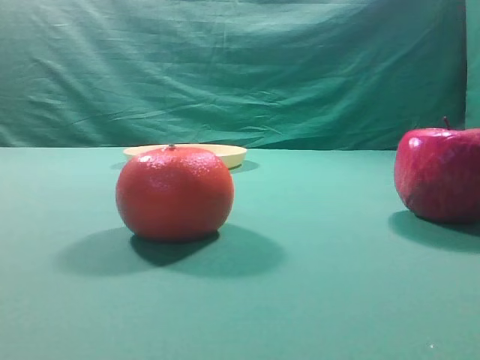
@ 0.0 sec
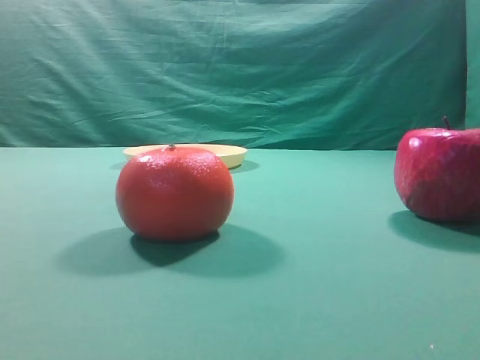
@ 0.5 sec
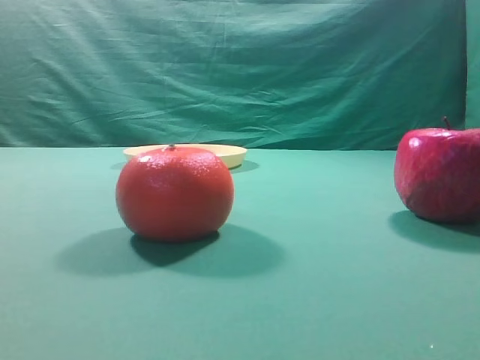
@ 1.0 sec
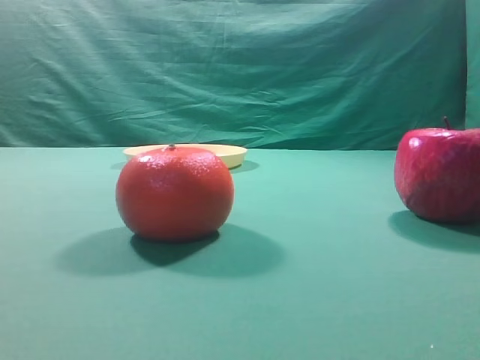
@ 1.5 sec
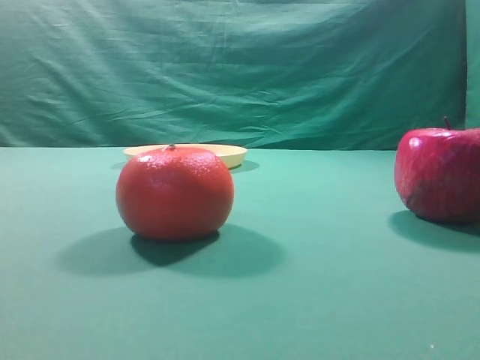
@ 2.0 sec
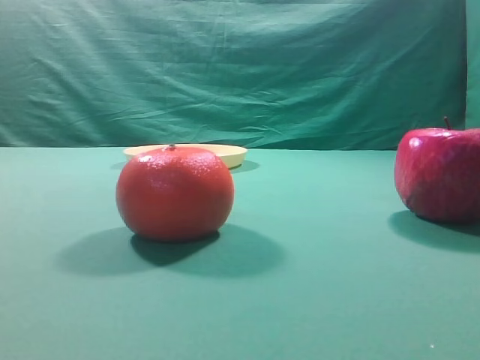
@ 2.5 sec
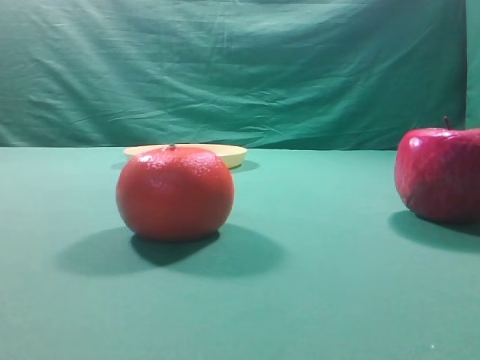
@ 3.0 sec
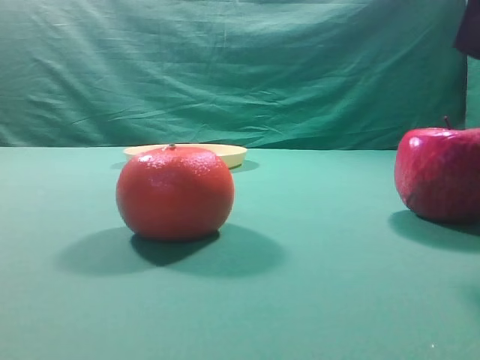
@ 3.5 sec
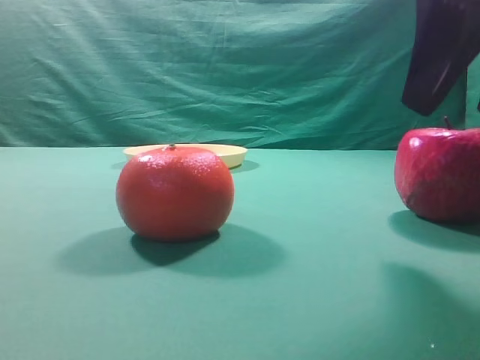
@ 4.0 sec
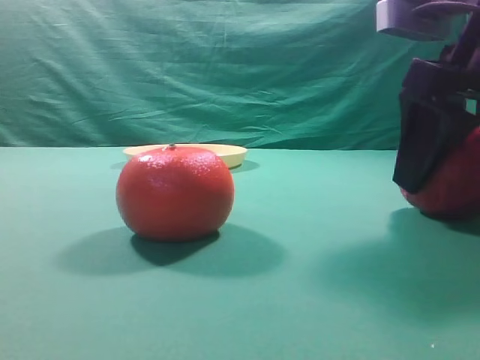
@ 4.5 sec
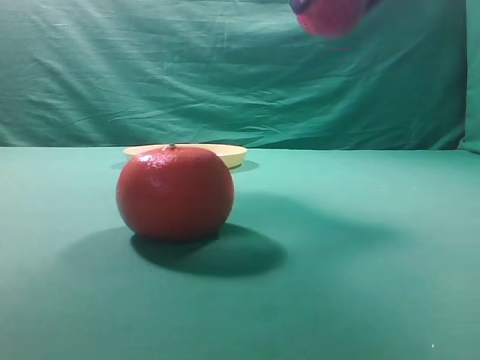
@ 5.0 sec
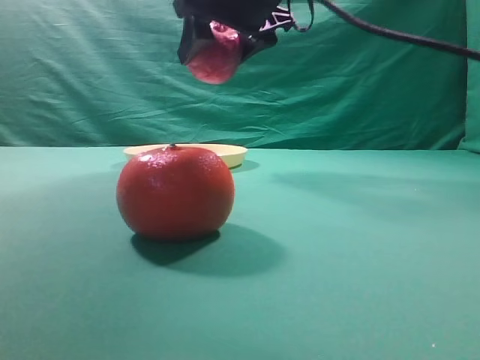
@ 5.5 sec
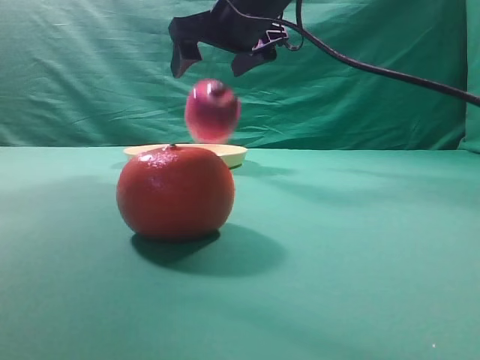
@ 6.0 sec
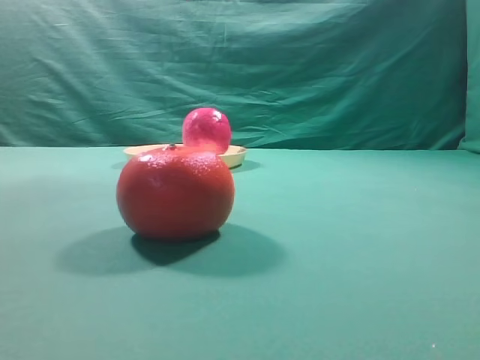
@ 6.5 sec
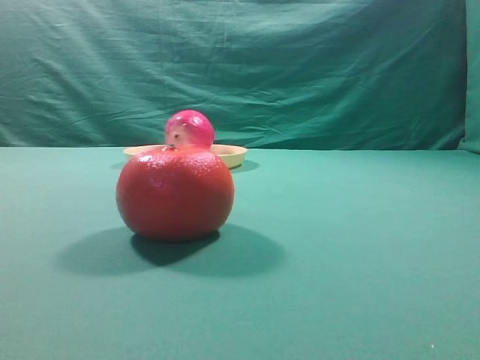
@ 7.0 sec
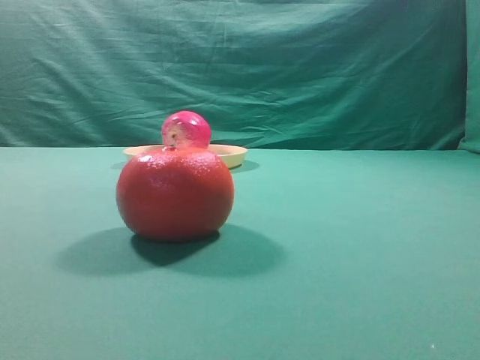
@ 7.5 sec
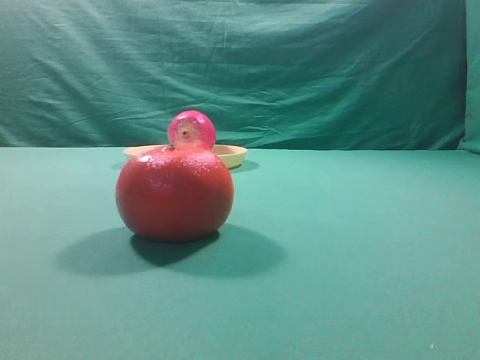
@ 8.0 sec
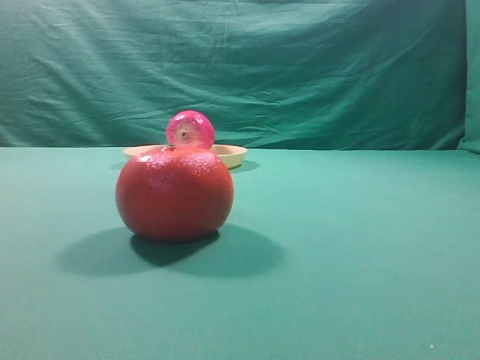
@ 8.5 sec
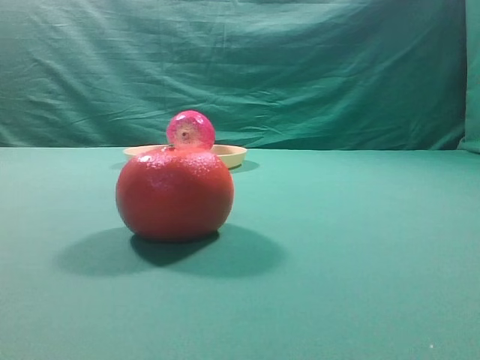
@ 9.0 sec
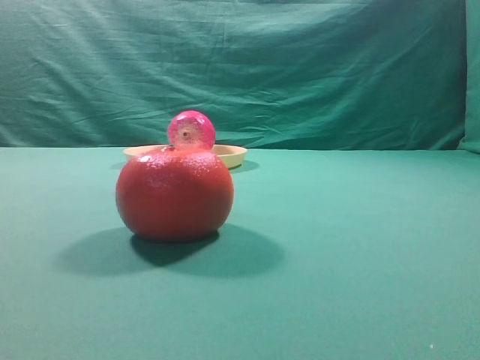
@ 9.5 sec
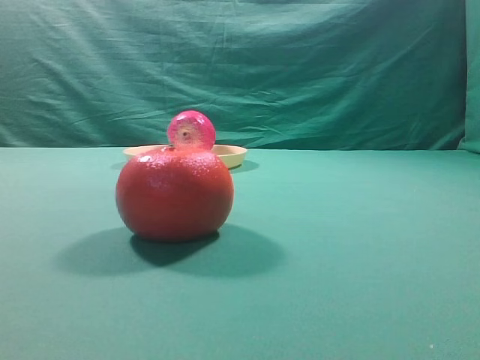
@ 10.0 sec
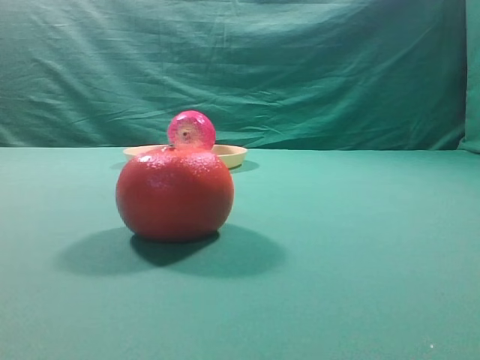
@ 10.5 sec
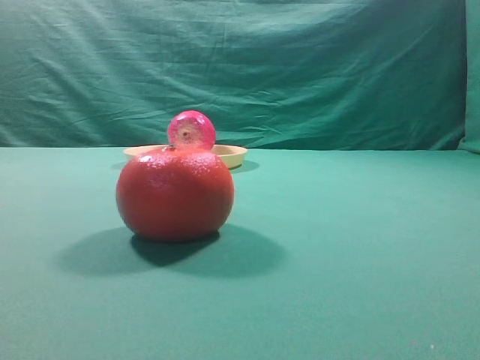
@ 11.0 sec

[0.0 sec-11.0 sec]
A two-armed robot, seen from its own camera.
Task of the whole recording: grasp the apple and place it into the yellow plate.
Step, 0.0 sec to 4.5 sec: Grasp the fruit that can keep the doctor away.
Step, 5.0 sec to 6.0 sec: Place the picked object into the yellow plate.

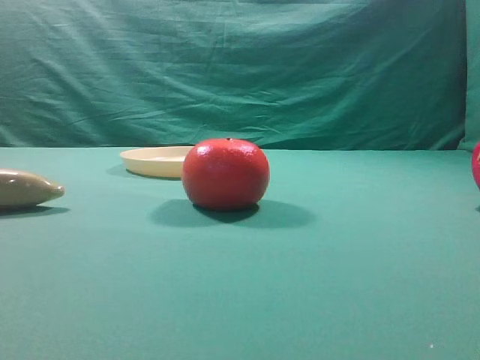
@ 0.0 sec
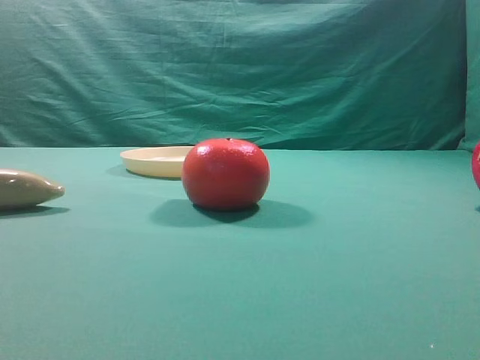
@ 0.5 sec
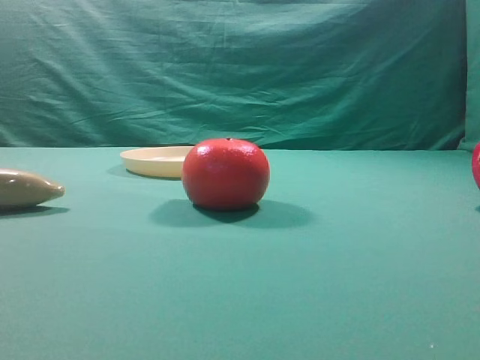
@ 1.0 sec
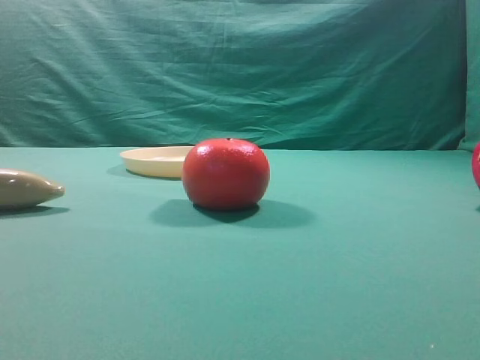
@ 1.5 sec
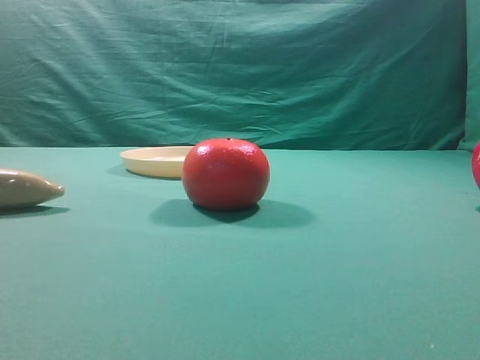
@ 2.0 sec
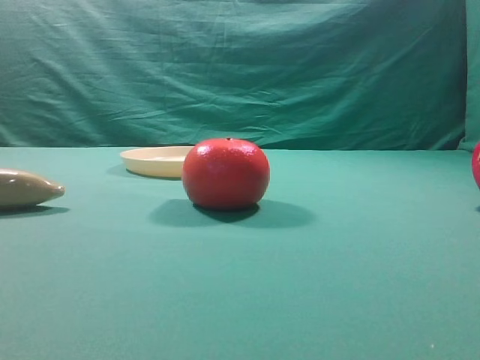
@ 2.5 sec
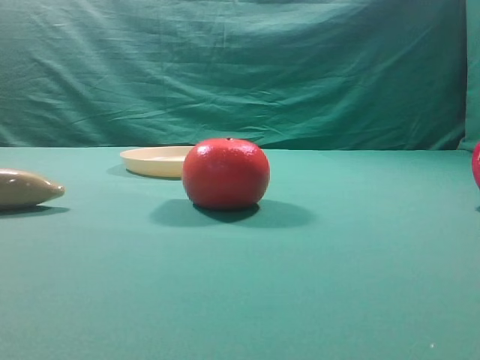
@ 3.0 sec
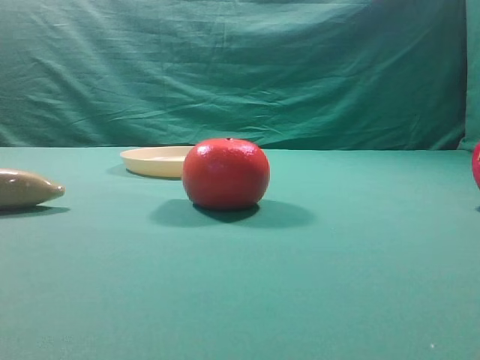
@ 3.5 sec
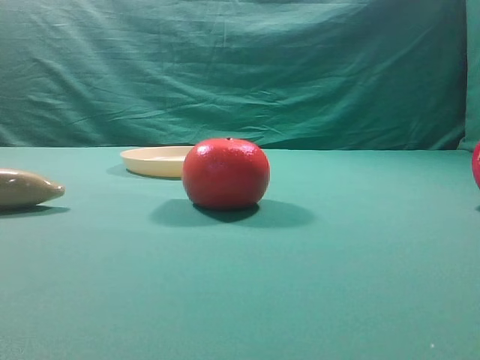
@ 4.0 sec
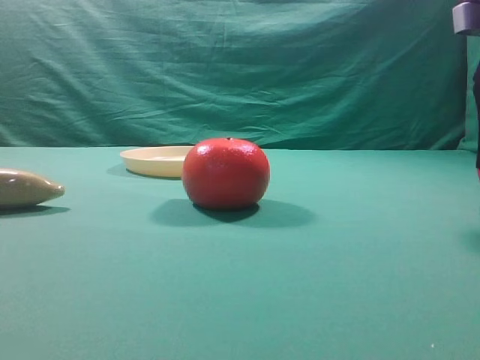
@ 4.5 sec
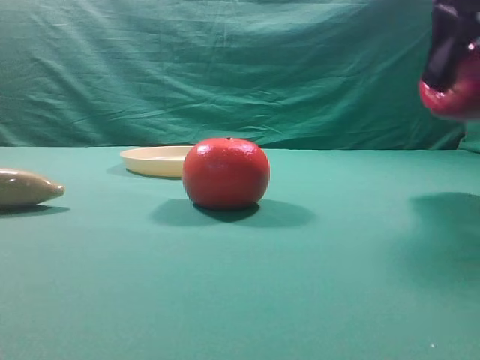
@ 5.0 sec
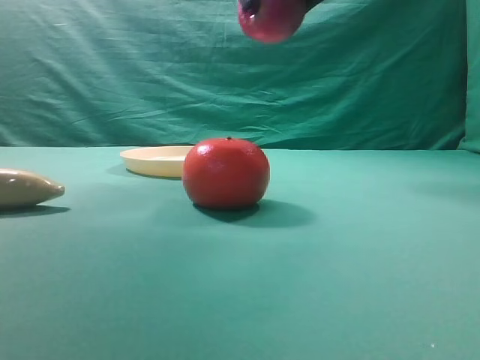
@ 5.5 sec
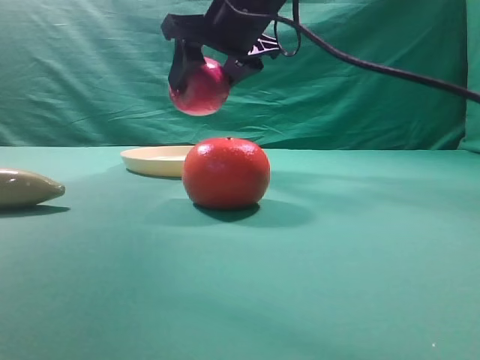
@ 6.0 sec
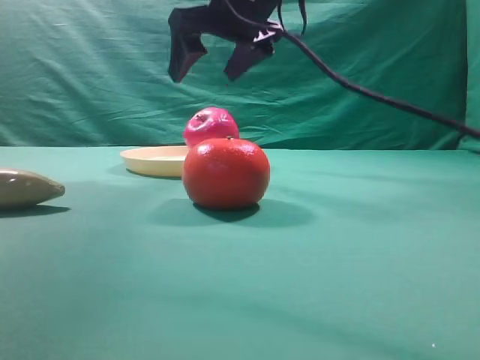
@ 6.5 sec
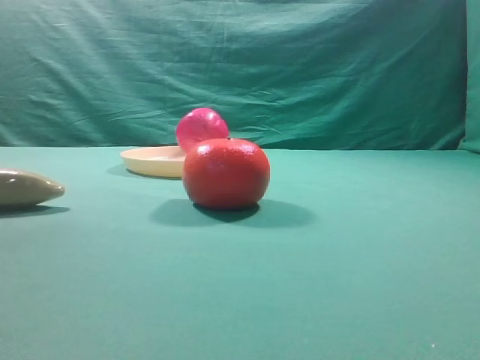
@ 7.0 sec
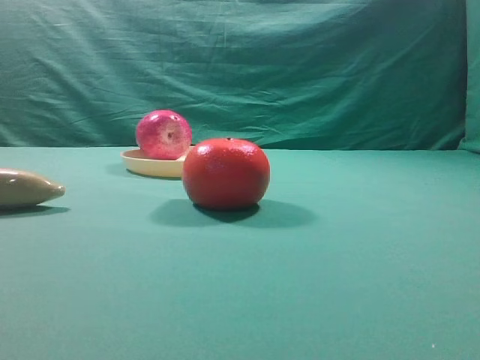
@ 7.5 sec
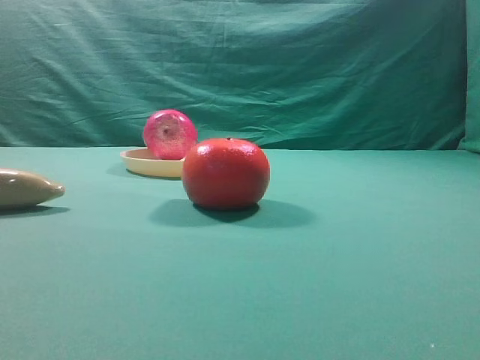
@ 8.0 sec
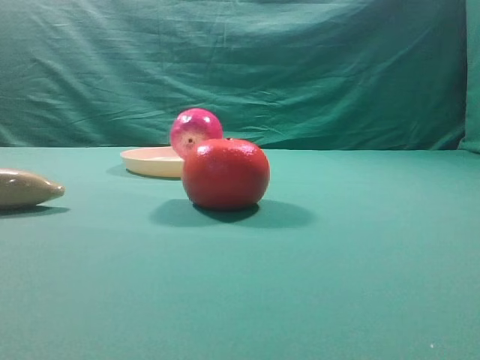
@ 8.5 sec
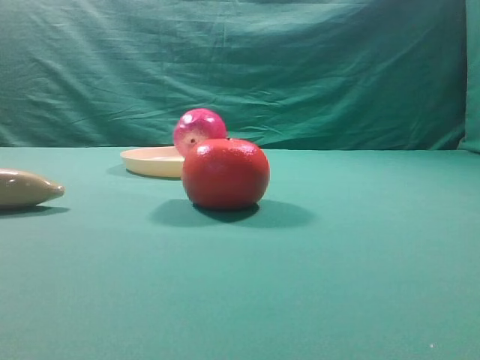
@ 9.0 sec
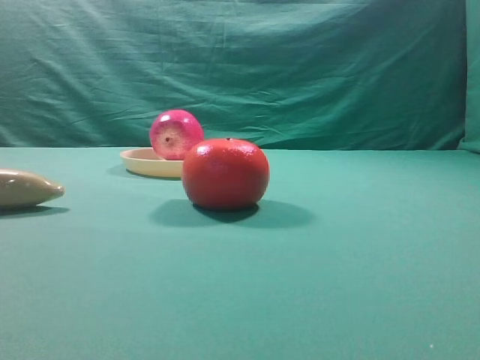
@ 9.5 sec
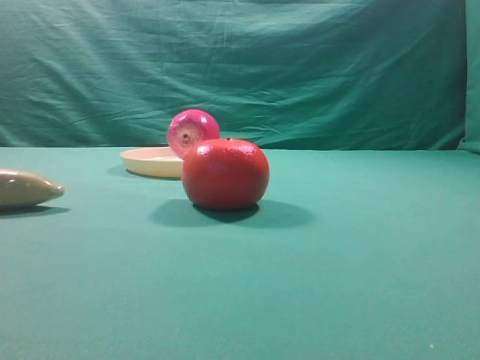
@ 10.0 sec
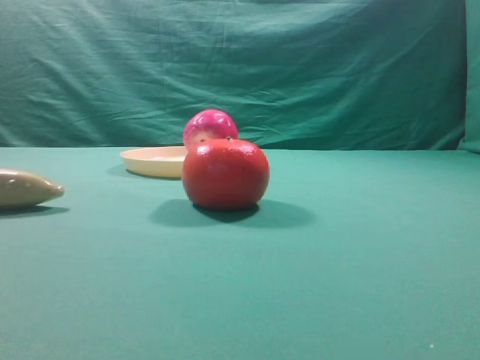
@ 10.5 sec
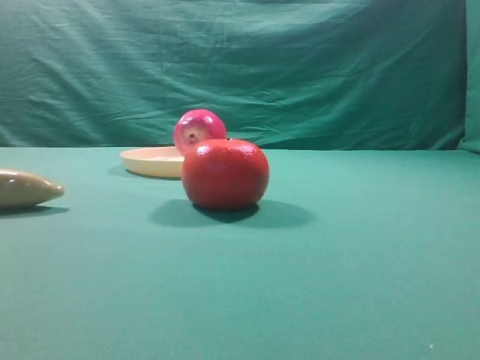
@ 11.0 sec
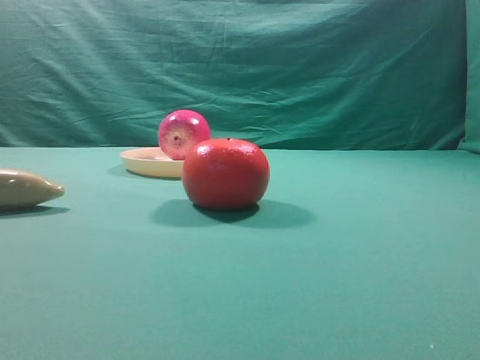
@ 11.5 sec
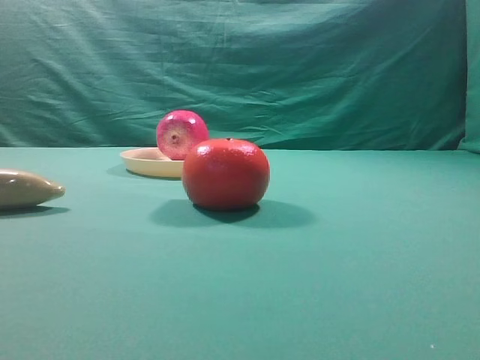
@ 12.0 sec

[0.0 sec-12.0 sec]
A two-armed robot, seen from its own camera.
Task of the whole recording: grasp the apple and place it into the yellow plate.
Step, 5.0 sec to 6.0 sec: Place the picked object into the yellow plate.

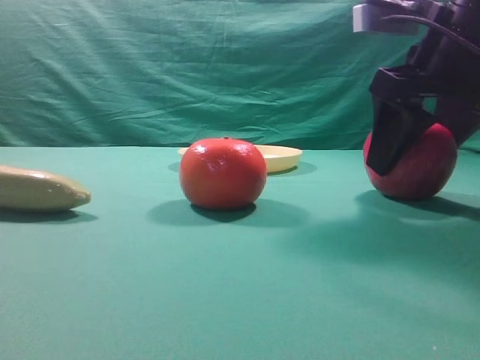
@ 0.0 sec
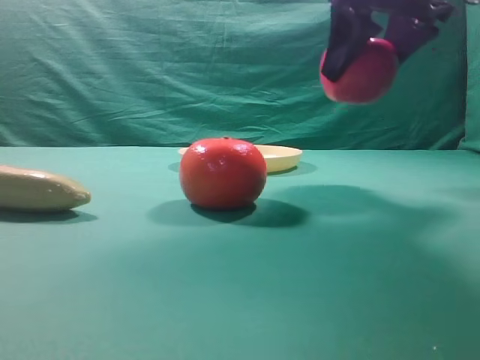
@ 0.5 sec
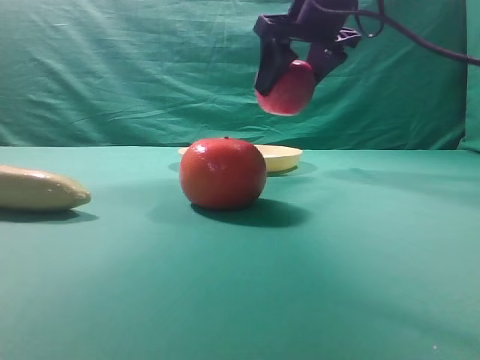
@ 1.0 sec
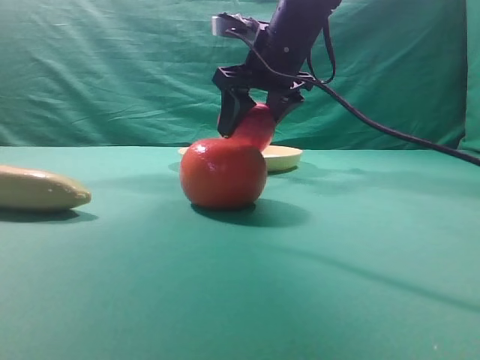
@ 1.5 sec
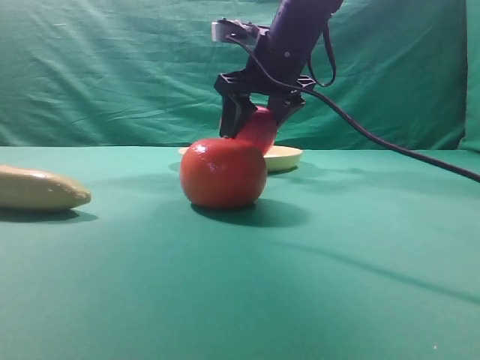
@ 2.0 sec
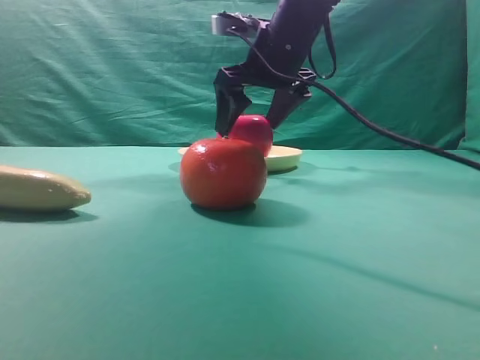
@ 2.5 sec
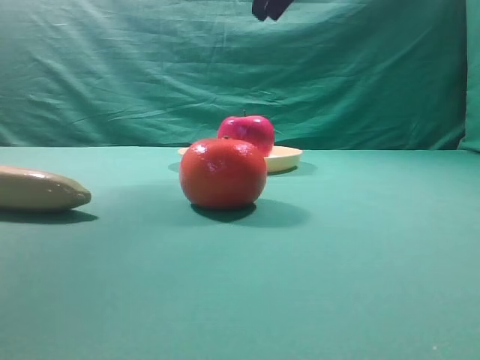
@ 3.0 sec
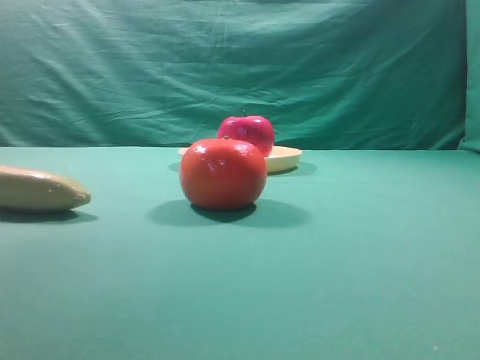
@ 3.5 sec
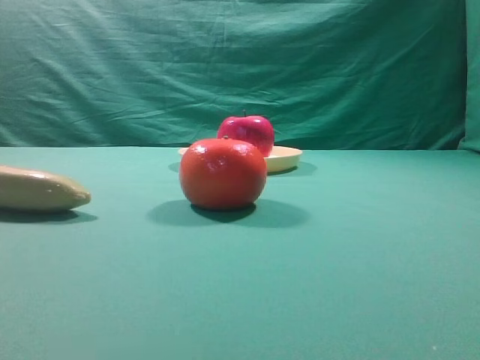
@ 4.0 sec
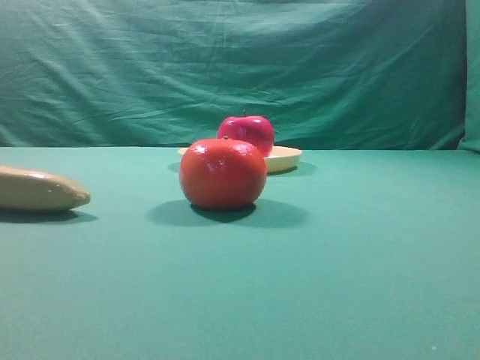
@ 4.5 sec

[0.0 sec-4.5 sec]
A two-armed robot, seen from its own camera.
Task of the whole recording: grasp the apple and place it into the yellow plate.
Step, 0.5 sec to 1.0 sec: Place the picked object into the yellow plate.
